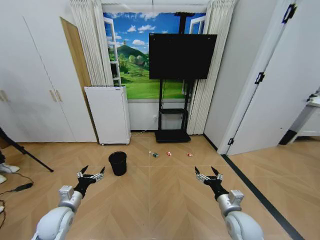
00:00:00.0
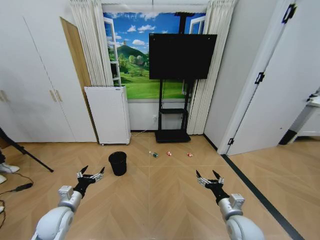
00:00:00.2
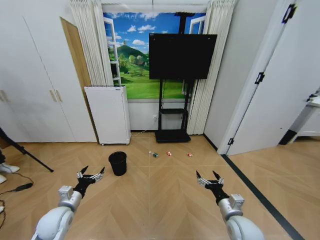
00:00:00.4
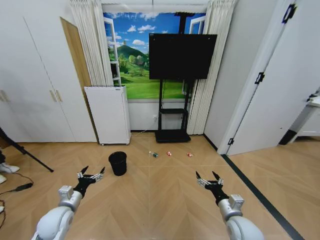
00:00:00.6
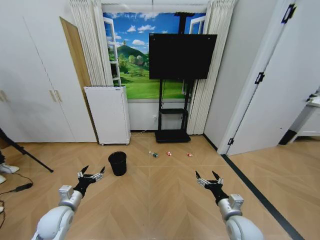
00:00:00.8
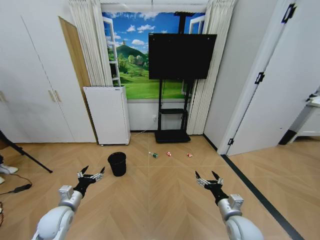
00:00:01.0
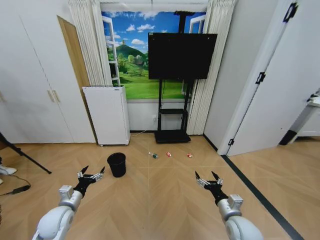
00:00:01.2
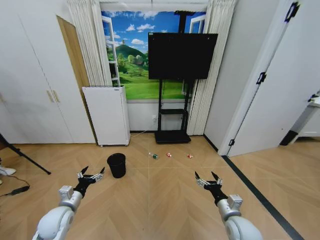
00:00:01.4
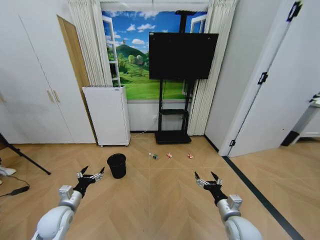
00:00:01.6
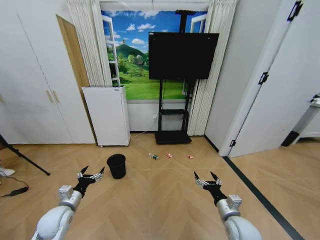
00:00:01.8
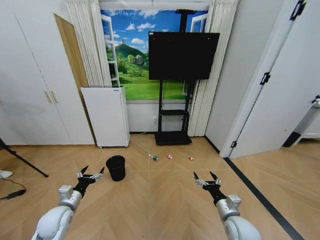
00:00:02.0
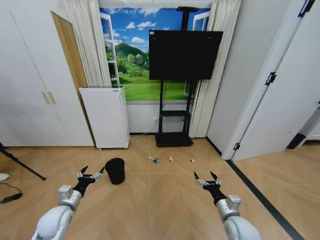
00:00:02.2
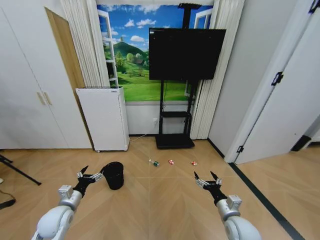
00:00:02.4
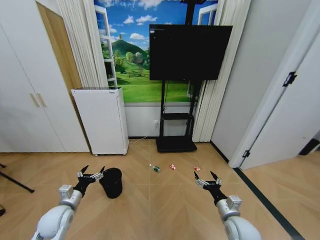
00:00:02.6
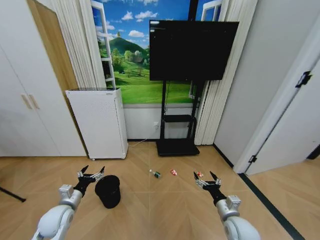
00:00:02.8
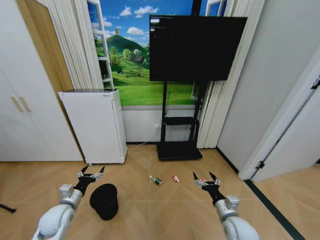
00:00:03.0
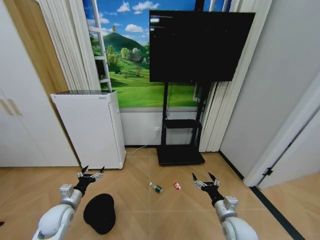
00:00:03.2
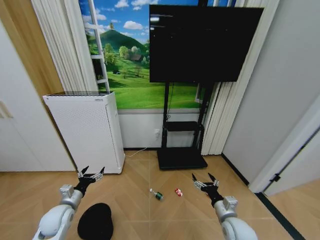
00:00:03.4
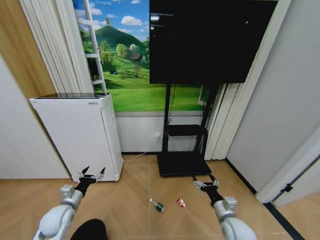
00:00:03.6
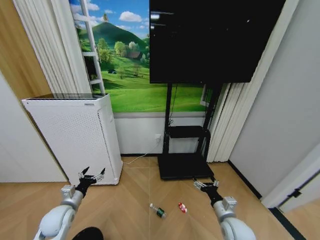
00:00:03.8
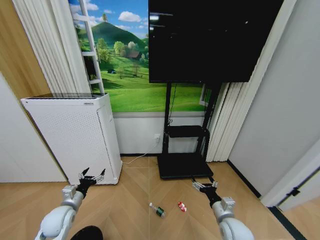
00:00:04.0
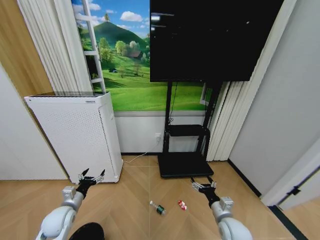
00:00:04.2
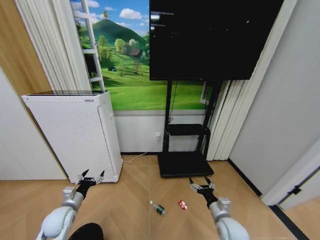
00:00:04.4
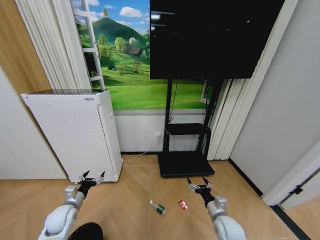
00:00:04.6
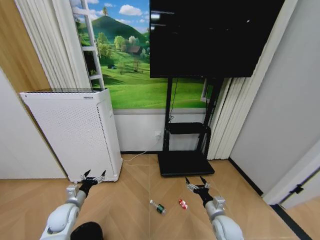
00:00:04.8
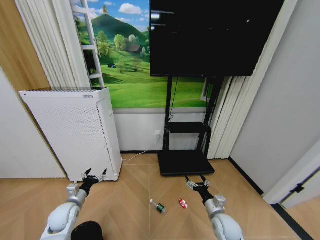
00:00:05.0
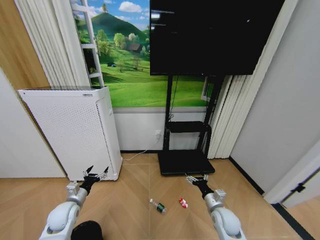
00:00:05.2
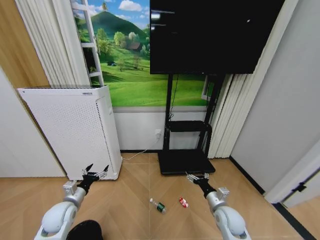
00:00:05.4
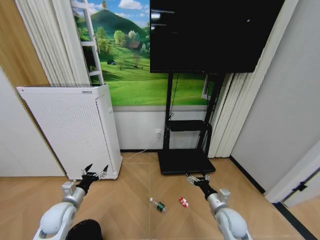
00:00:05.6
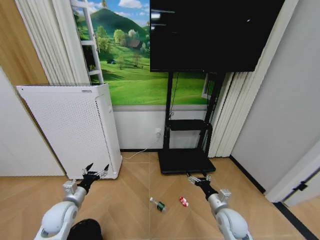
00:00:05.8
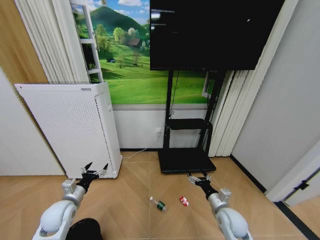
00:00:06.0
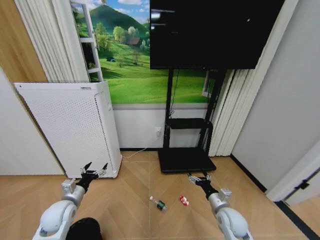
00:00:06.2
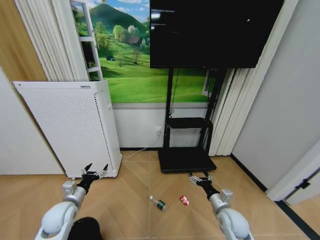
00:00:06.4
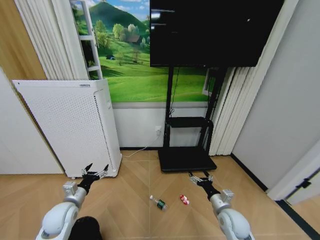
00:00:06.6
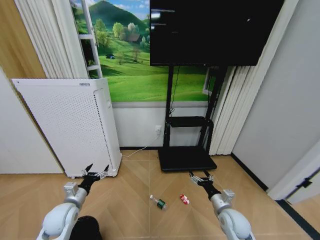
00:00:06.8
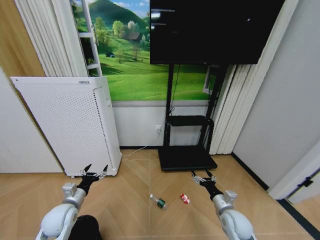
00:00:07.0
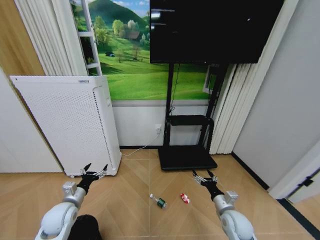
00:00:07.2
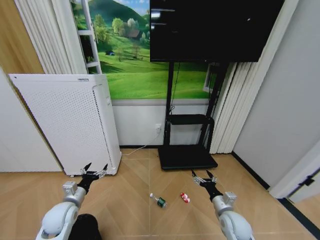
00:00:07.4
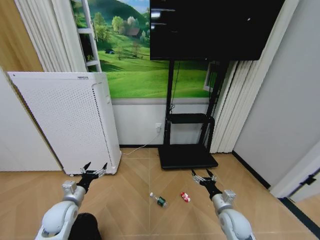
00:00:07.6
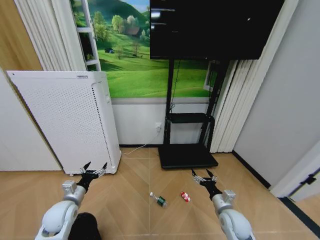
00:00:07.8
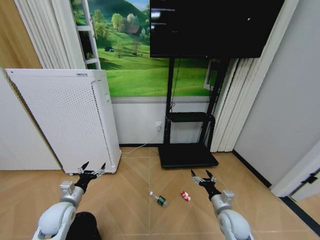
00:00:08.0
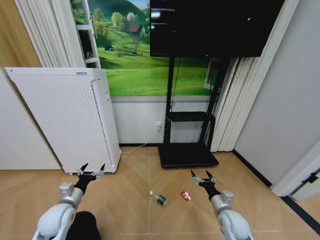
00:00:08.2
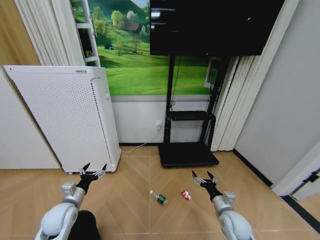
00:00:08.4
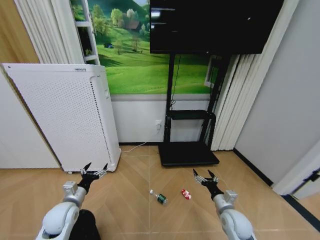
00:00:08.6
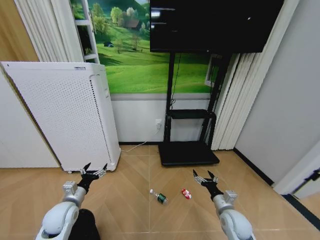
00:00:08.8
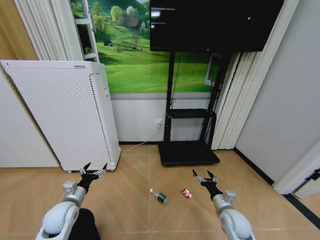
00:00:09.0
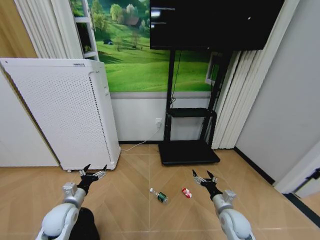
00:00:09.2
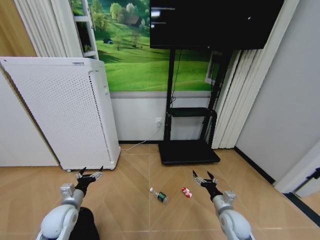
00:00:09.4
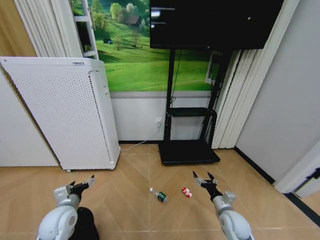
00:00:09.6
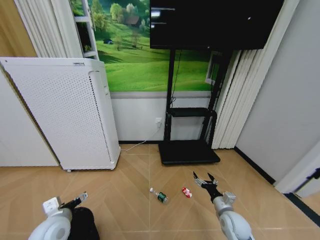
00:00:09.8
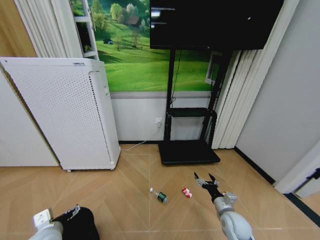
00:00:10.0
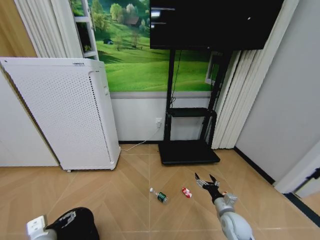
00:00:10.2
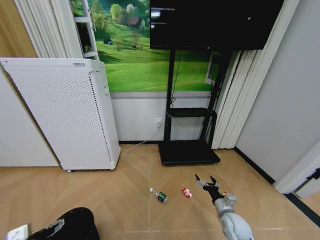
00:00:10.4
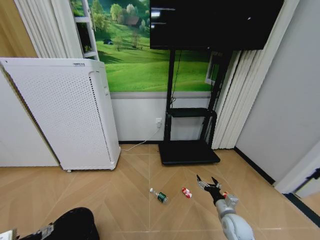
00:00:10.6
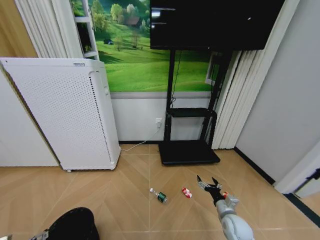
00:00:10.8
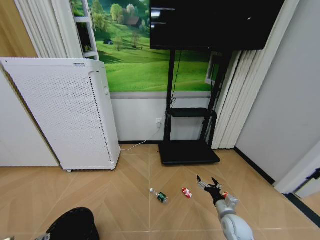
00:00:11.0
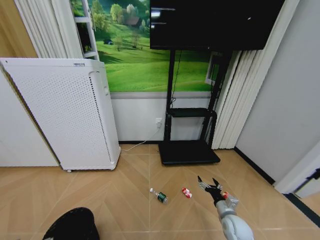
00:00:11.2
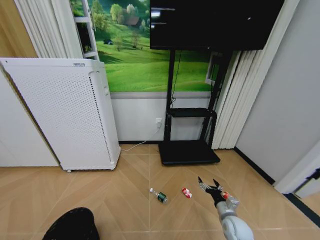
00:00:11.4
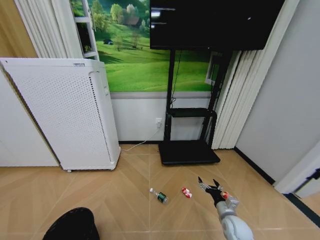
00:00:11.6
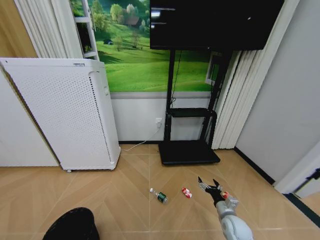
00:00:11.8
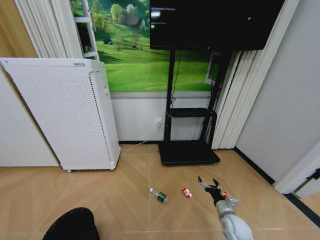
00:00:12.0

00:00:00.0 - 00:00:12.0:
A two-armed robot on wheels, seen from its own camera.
Task of the whole recording: Pick up the trash bin and place the garbage on the floor into it.
00:00:04.4 - 00:00:06.0: The left gripper changes place by approximately 5 cm.
00:00:06.0 - 00:00:07.6: The grippers move only a little.
00:00:07.6 - 00:00:09.0: Neither gripper changes place.
00:00:09.0 - 00:00:10.4: The left gripper shifts roughly 15 cm backward.
00:00:10.4 - 00:00:12.0: The left gripper is displaced downward and to the left by about 10 cm.

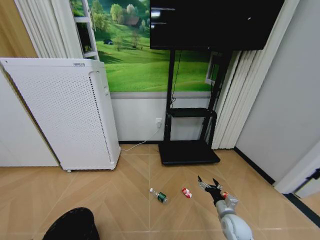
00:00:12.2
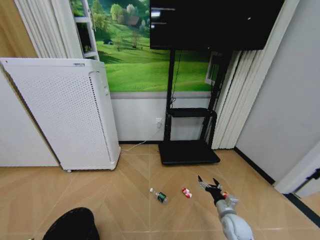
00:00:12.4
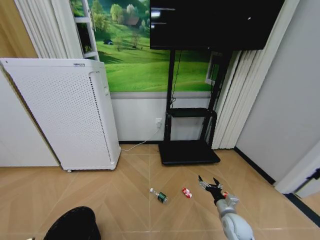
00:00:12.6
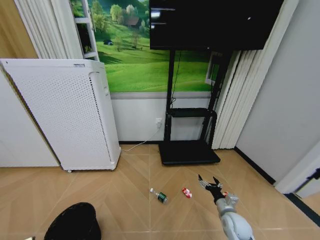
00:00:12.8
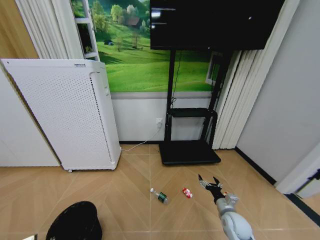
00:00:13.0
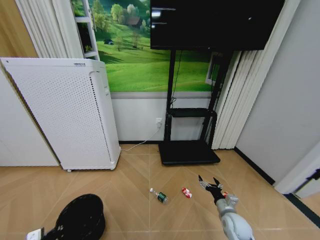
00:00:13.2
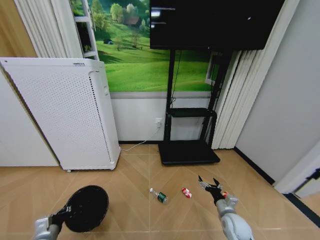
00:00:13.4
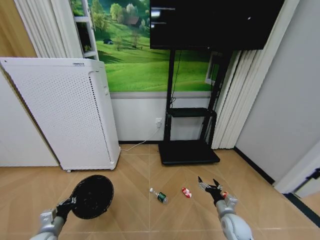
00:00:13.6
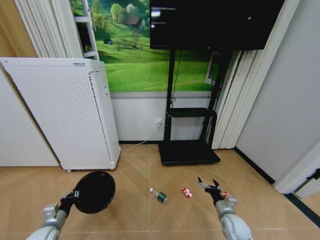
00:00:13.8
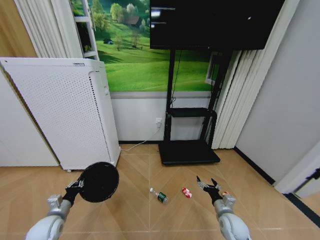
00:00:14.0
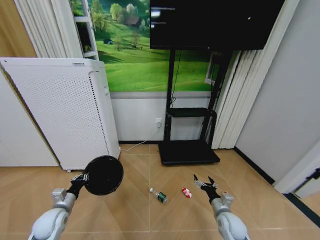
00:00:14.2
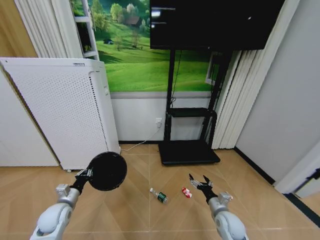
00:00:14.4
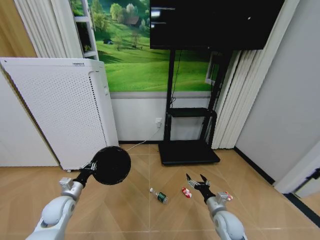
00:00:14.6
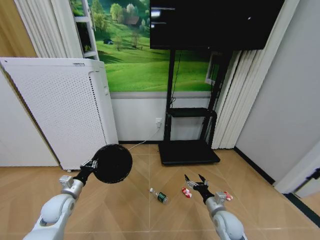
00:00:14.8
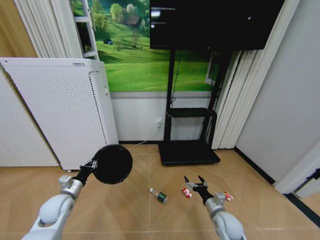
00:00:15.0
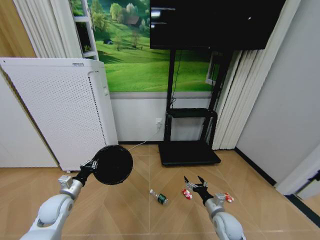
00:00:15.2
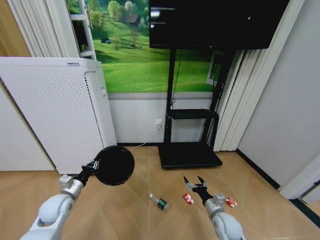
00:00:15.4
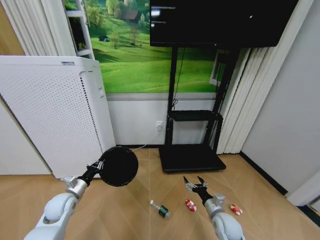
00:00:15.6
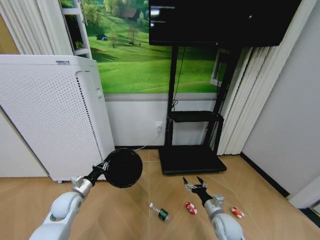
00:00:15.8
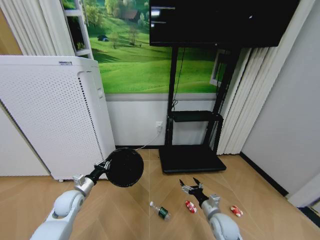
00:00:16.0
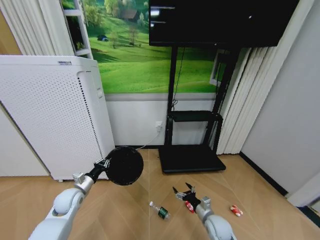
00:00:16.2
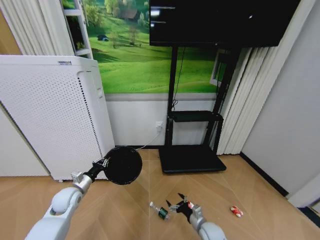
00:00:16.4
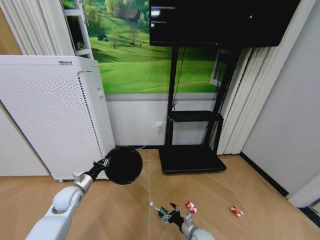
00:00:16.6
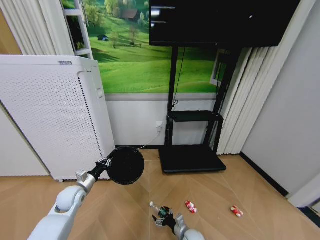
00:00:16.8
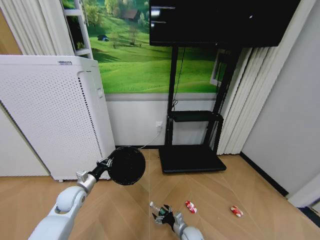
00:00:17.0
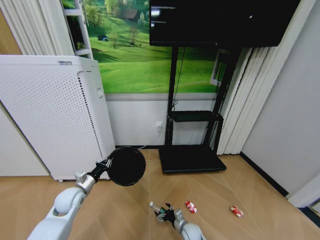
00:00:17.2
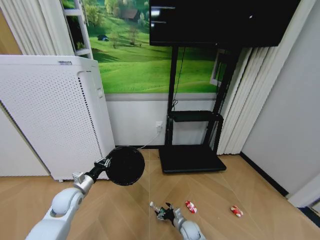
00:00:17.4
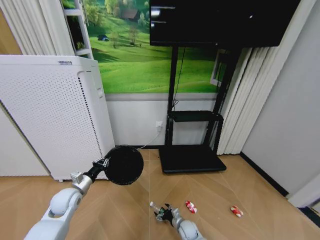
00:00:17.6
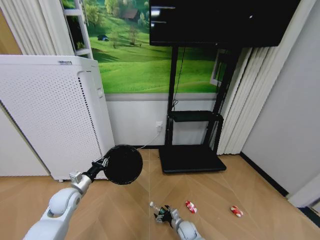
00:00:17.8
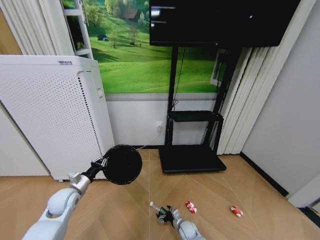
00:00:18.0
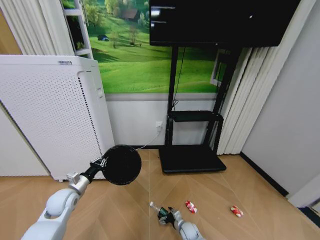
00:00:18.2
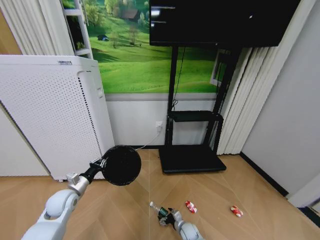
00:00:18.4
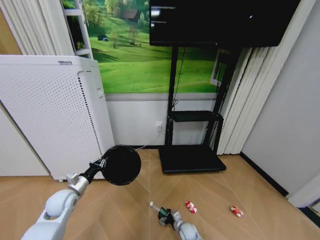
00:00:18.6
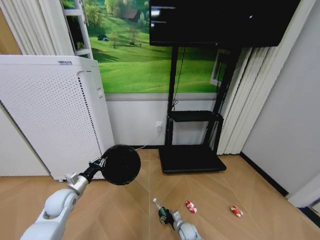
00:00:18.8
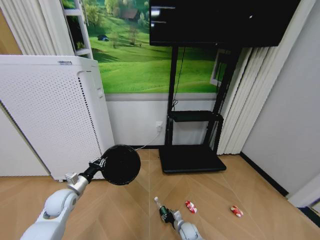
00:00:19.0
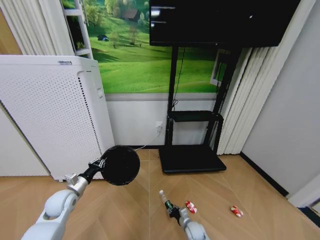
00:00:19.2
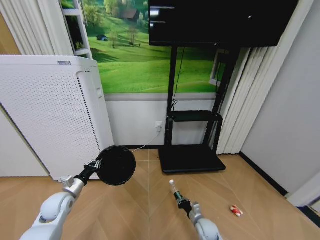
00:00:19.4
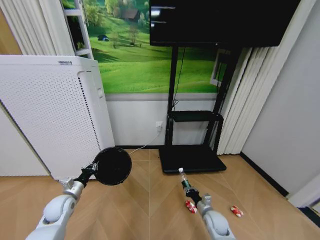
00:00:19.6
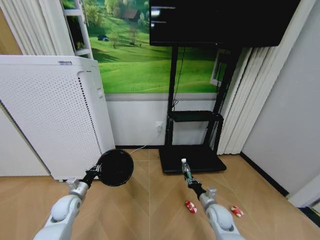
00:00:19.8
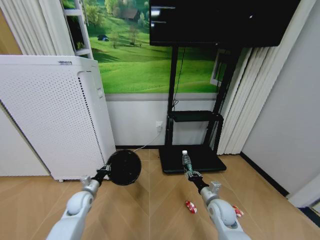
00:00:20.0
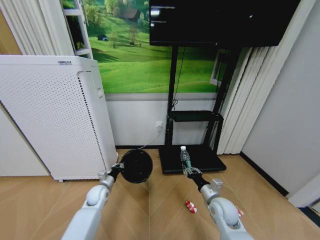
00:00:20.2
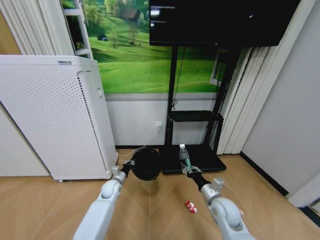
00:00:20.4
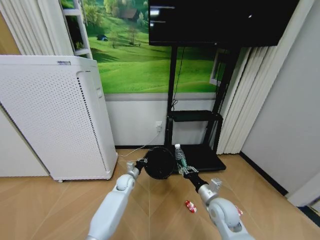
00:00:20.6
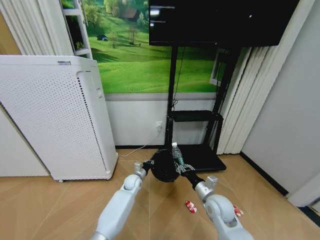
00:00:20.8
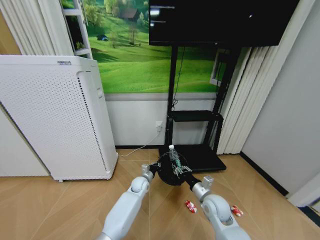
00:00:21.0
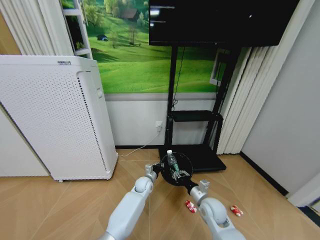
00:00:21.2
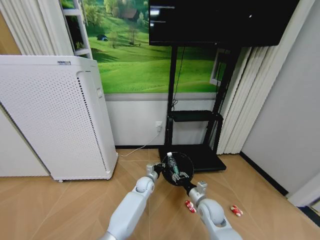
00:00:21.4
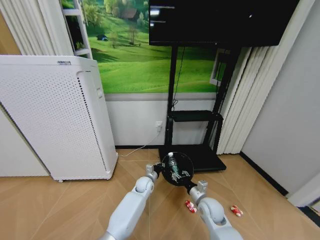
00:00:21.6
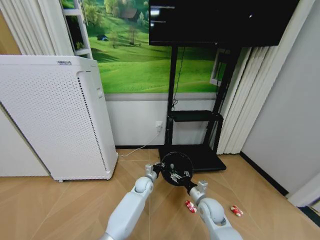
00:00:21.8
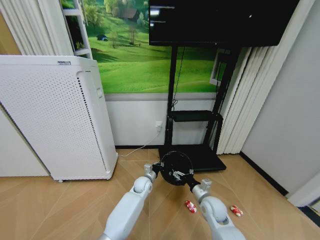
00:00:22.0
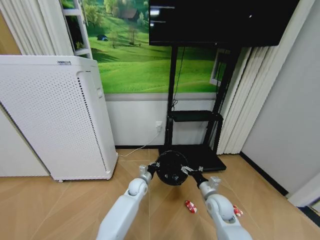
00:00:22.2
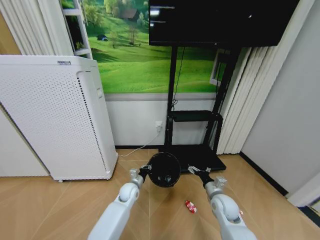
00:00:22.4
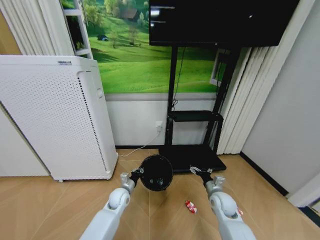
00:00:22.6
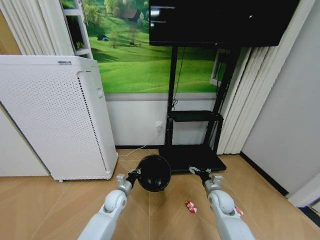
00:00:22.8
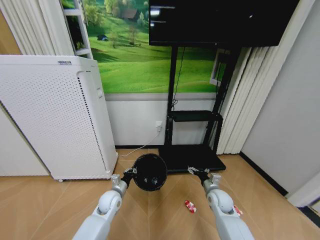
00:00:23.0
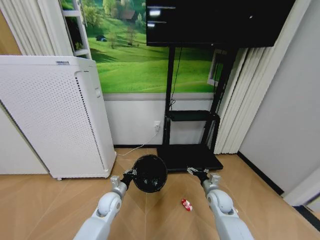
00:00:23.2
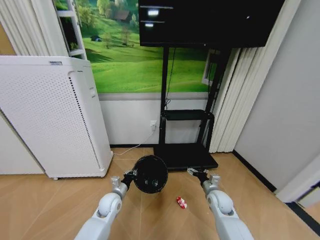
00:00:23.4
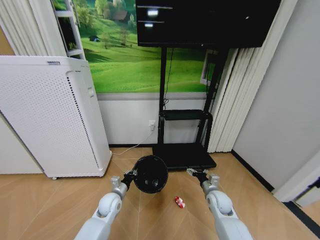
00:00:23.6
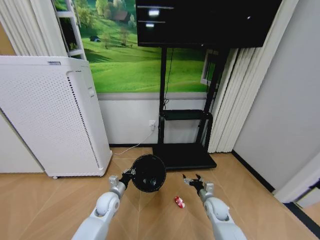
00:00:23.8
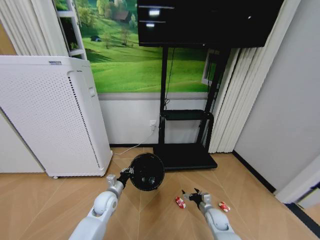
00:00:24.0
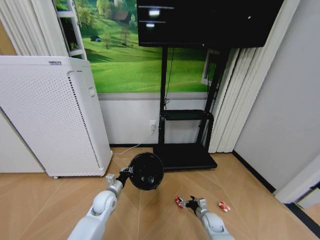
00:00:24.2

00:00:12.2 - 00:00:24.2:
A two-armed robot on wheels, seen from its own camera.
Task of the whole recording: Pick up the trash bin and place the garbage on the floor into it.
00:00:12.2 - 00:00:13.8: The left gripper shifts roughly 10 cm forward, and closes its fingers.
00:00:13.8 - 00:00:15.2: The left gripper heads upward and forward, covering roughly 10 cm.
00:00:15.2 - 00:00:16.6: The right gripper travels downward and to the left by roughly 15 cm.
00:00:16.6 - 00:00:18.2: The right gripper heads downward and forward, covering roughly 10 cm.
00:00:18.2 - 00:00:19.8: The right gripper heads upward and to the right, covering some 20 cm, and closes up. The left gripper heads downward, covering some 5 cm.
00:00:19.8 - 00:00:21.2: The left gripper moves to the right, about 35 cm. The right gripper is displaced upward by approximately 5 cm.
00:00:21.2 - 00:00:22.6: The left gripper shifts about 15 cm to the left and backward; the right gripper moves to the right, approximately 5 cm, and opens.
00:00:22.6 - 00:00:24.2: The right gripper moves downward, about 20 cm; the left gripper shifts about 5 cm to the left.
